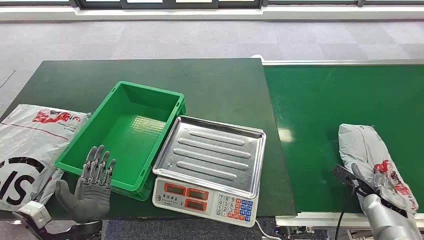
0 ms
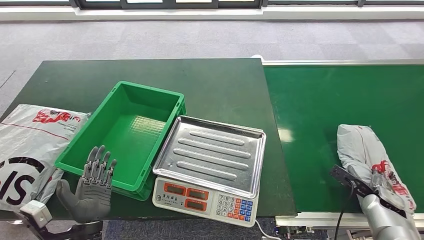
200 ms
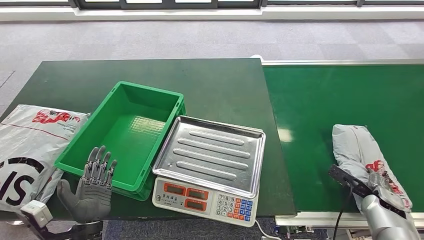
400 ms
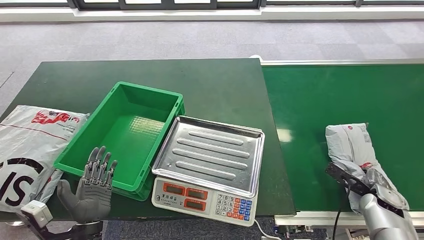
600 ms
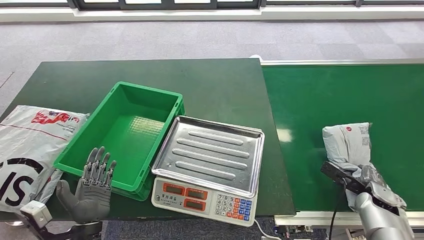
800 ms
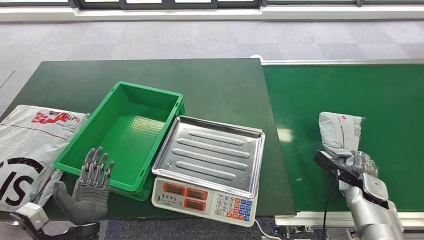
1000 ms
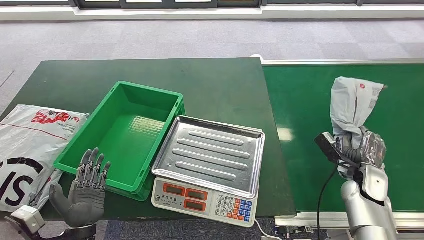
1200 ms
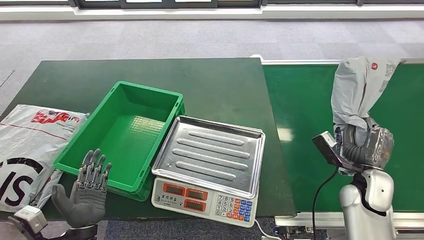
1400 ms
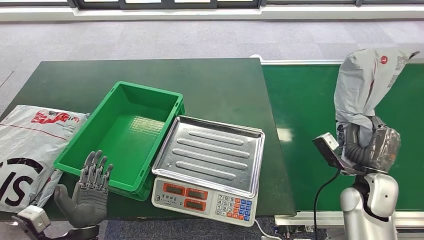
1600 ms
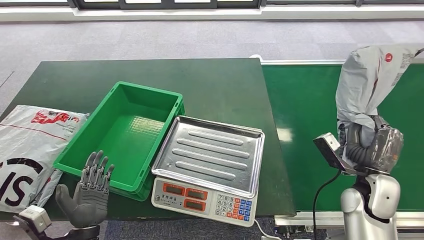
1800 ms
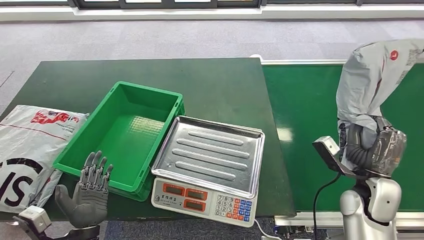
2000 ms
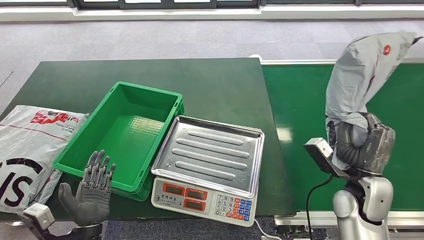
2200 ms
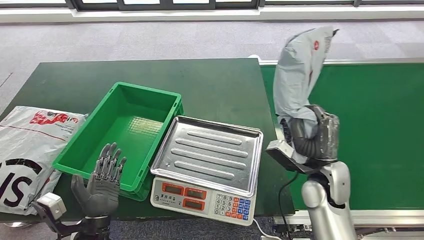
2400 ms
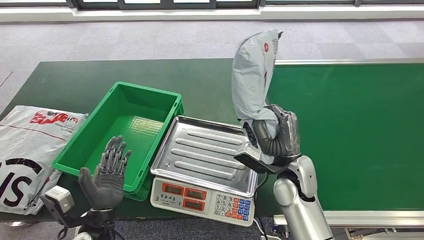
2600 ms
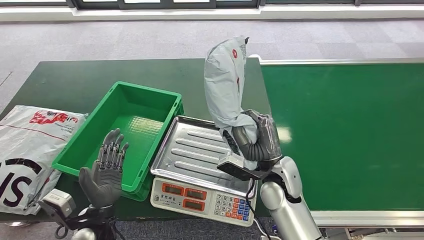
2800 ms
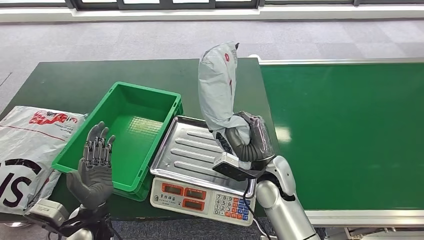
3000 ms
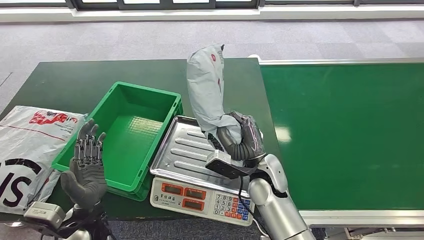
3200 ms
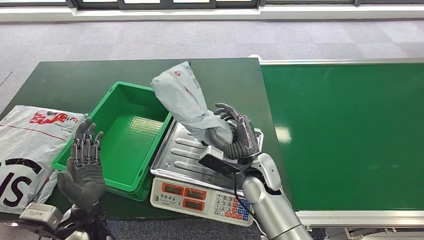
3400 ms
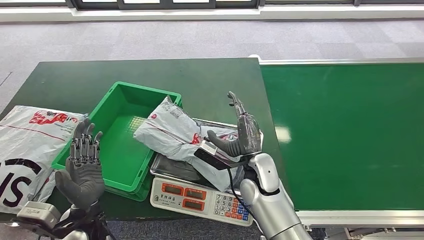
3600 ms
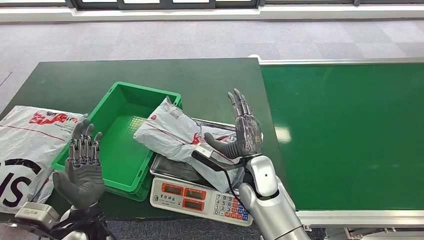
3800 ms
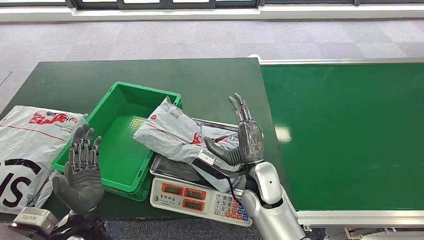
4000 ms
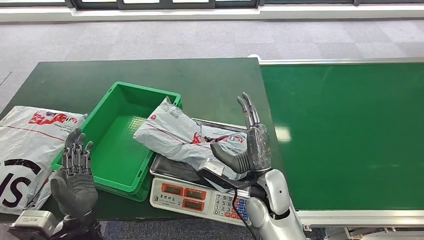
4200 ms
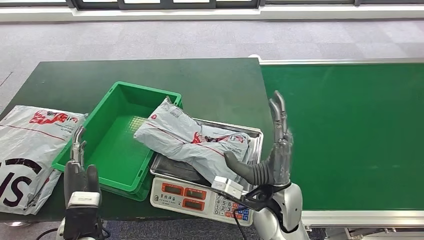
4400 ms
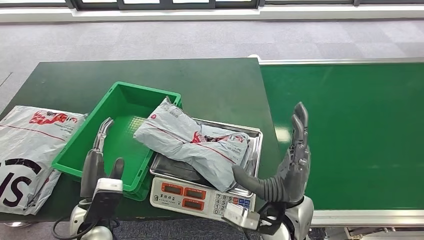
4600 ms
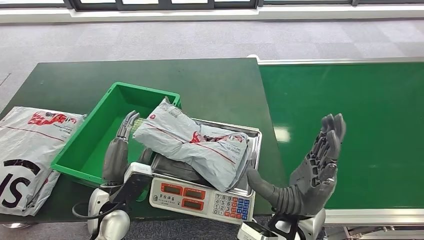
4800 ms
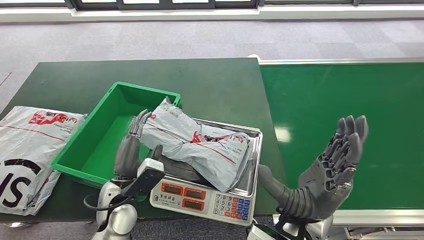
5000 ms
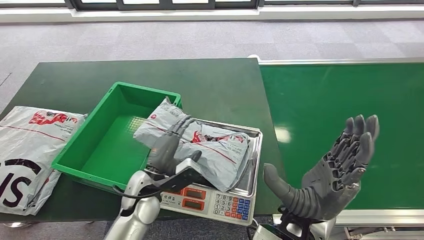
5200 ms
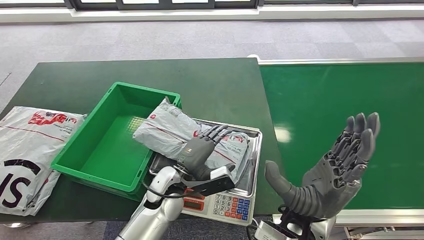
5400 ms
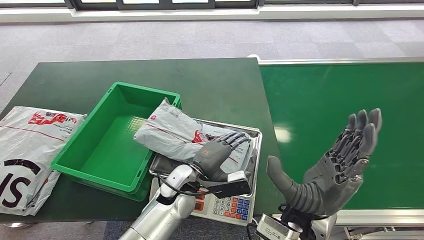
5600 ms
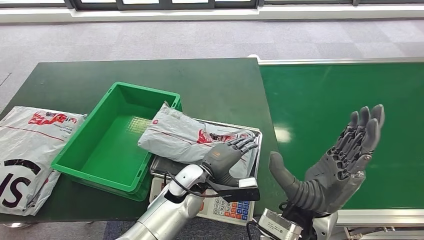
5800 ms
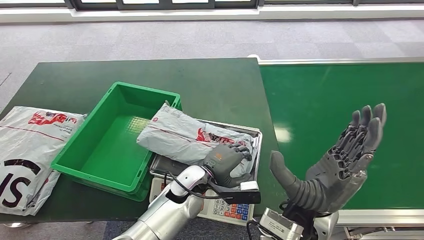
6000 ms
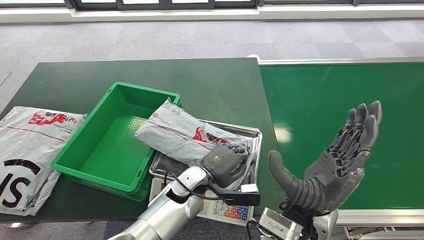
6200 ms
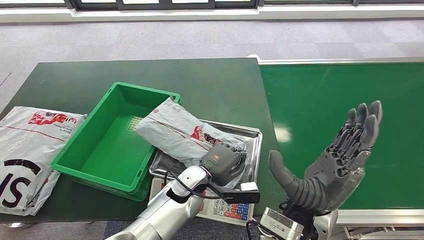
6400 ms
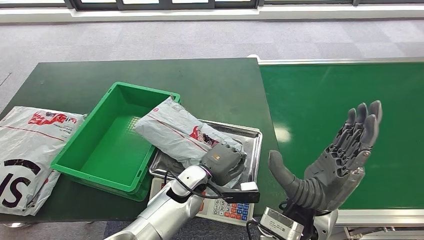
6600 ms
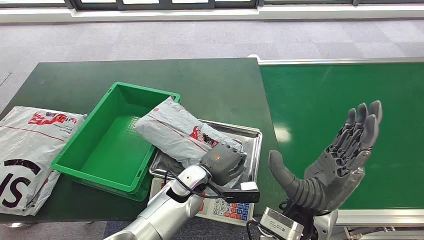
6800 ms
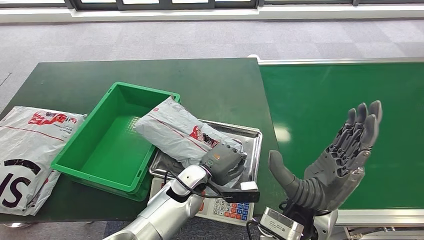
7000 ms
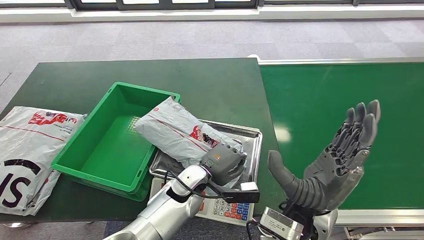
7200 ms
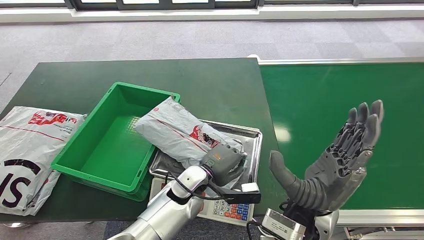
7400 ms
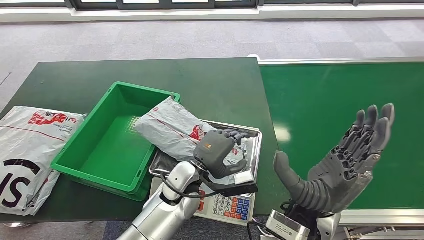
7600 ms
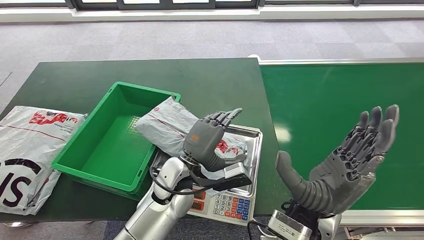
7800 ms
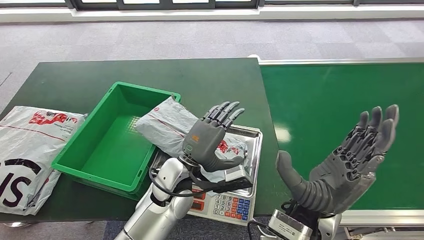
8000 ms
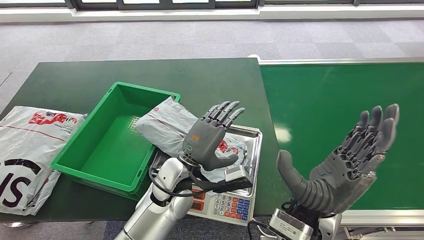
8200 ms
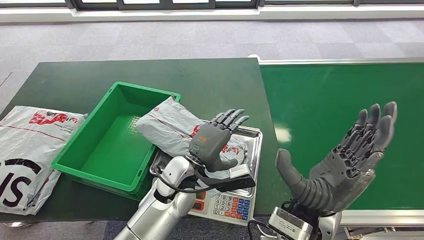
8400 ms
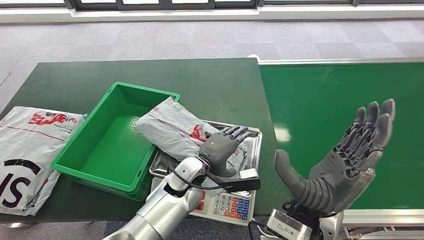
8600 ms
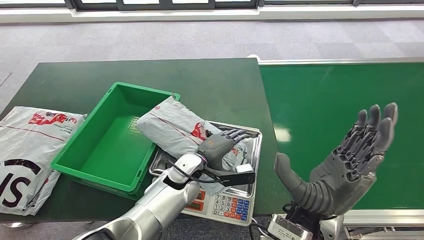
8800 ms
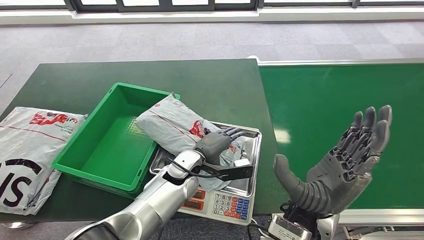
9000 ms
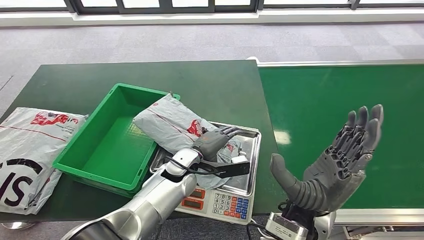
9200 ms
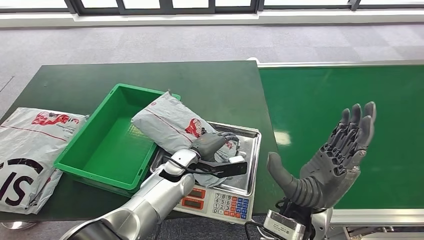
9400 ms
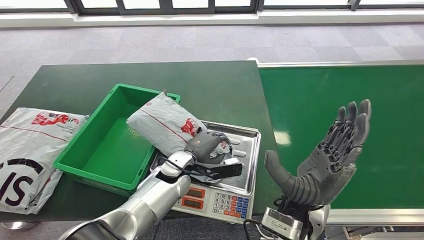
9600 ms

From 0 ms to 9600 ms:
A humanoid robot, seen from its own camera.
Step, from 0 ms to 1600 ms: Pick up the package from the conveyor belt.
Step, from 1800 ms to 3800 ms: Place the package onto the inbound machine.
From 4800 ms to 6400 ms: The left hand heads to the right and forward, covering approximately 15 cm.
From 6400 ms to 8000 ms: The left hand shifts about 5 cm upward.

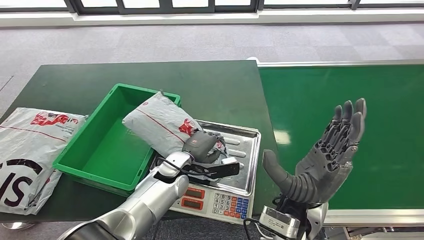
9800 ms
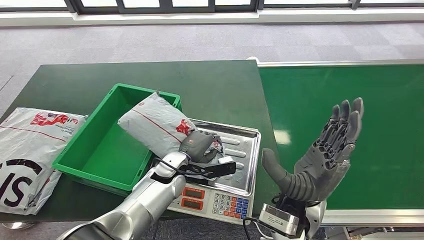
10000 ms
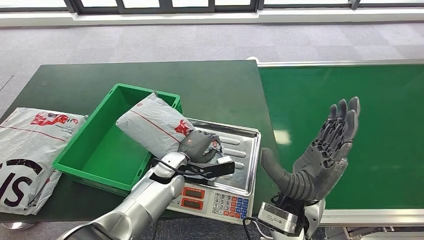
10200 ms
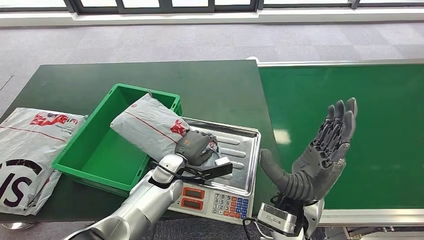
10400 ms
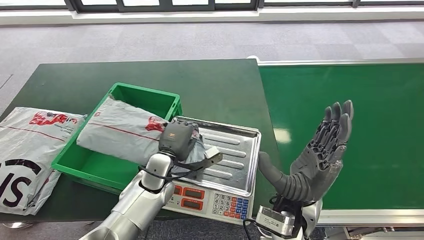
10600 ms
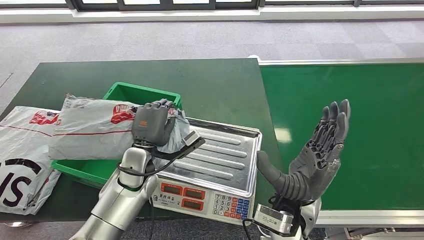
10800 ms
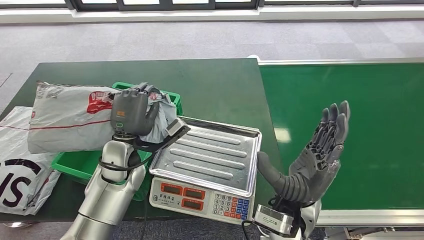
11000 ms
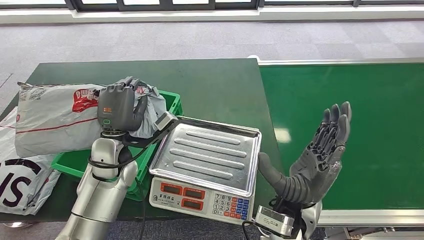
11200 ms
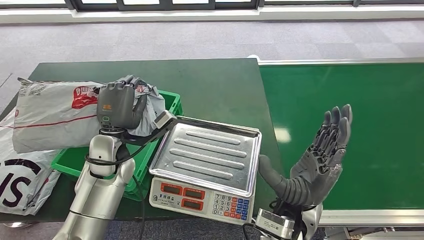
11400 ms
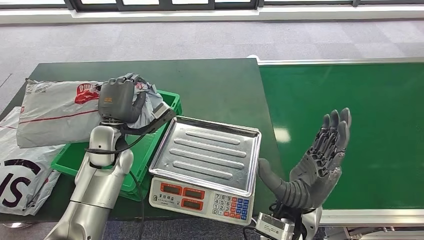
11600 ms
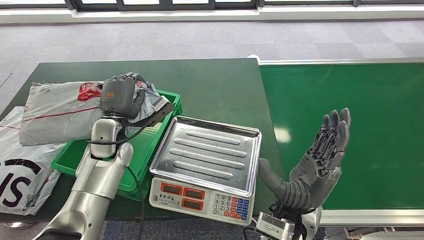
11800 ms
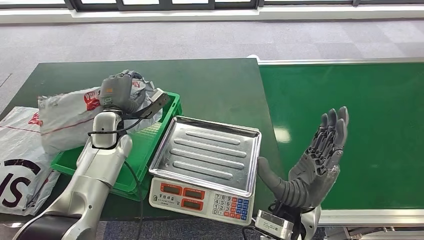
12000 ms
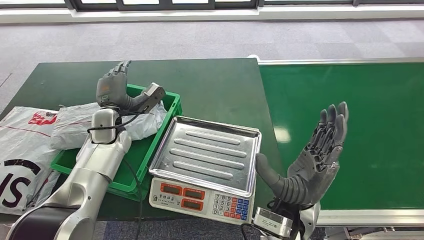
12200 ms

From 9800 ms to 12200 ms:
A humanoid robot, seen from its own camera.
Step, from 11200 ms to 12200 ms: Place the package into the parcel locker.
From 11000 ms to 12200 ms: The left hand shifts about 10 cm forward and to the left.
